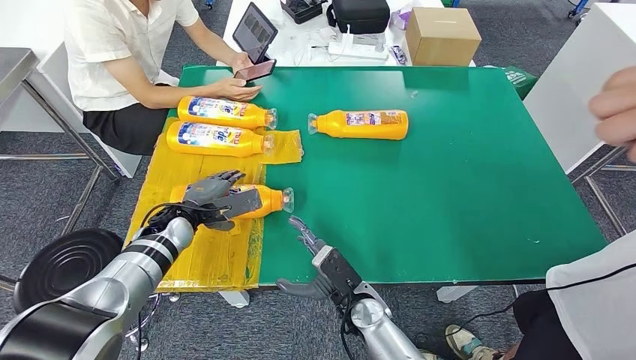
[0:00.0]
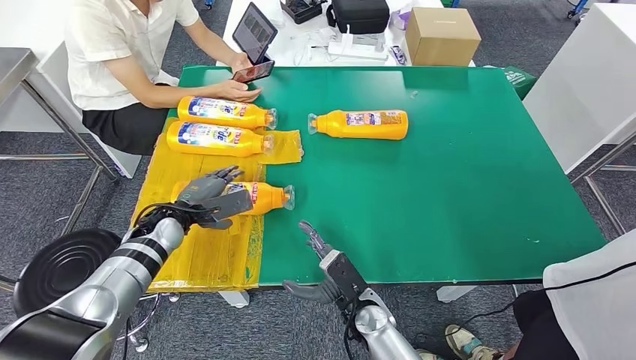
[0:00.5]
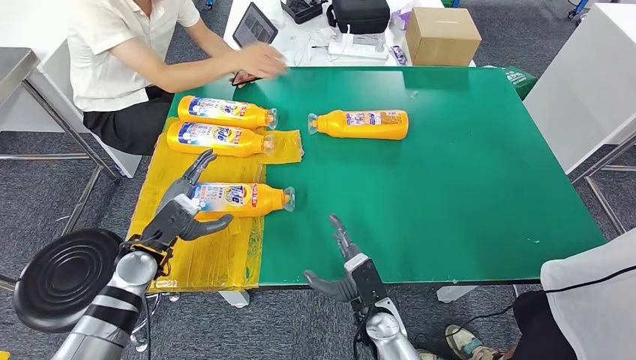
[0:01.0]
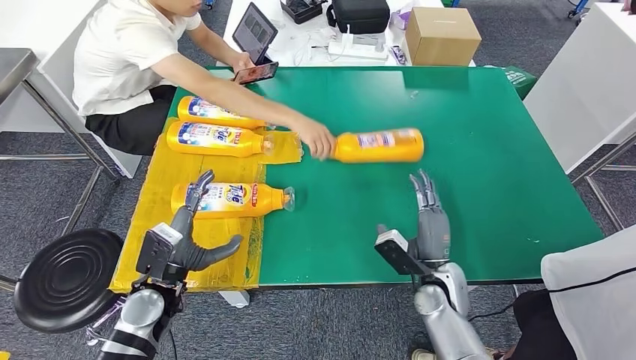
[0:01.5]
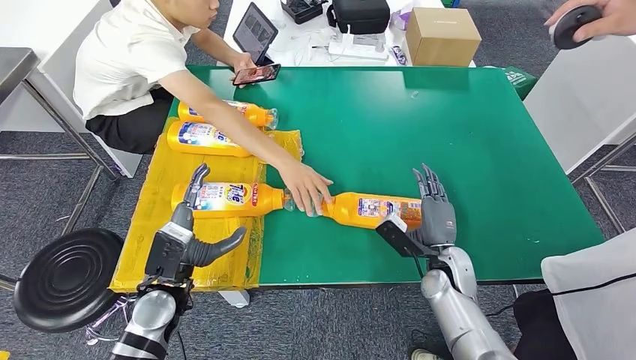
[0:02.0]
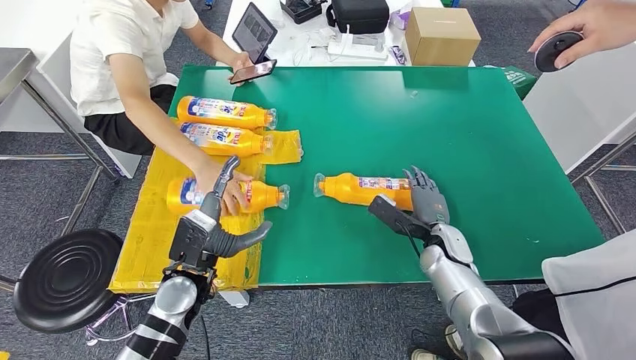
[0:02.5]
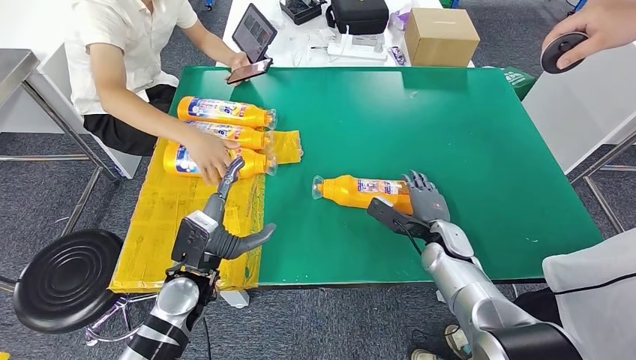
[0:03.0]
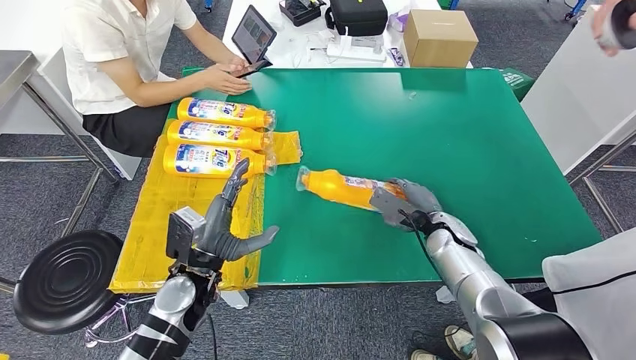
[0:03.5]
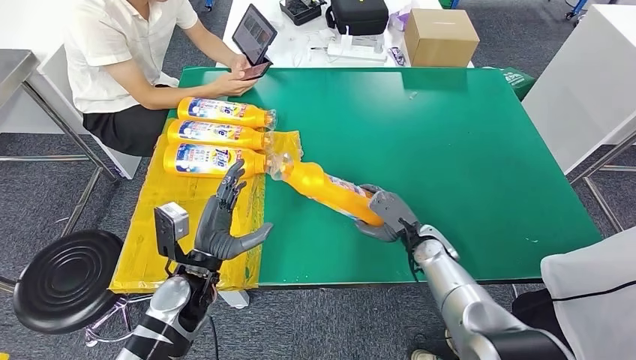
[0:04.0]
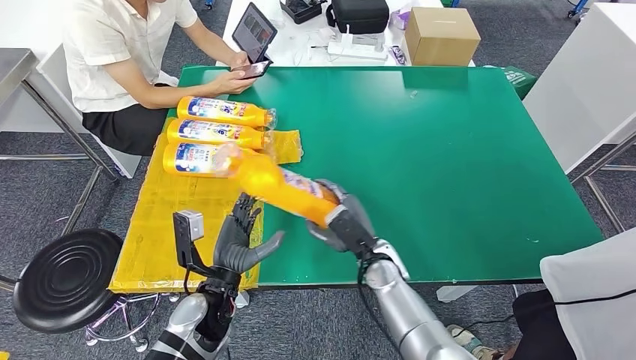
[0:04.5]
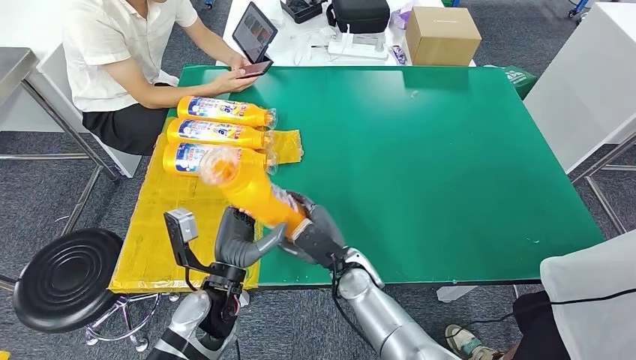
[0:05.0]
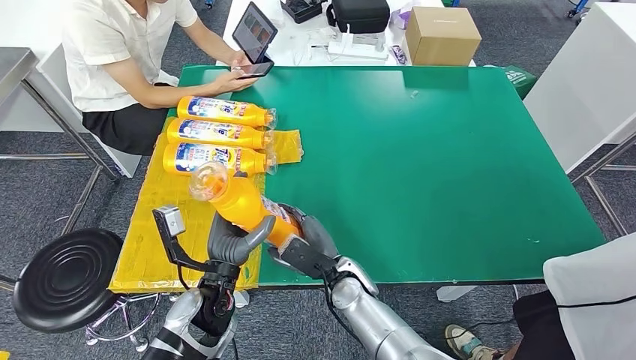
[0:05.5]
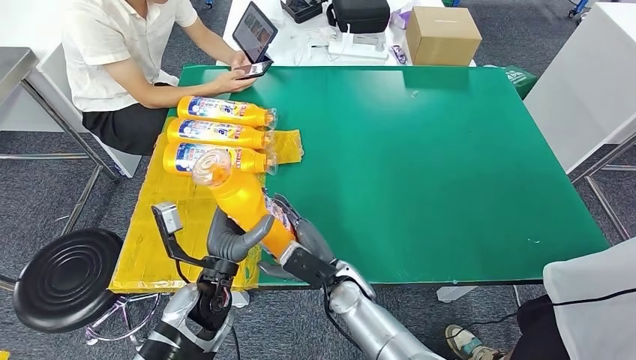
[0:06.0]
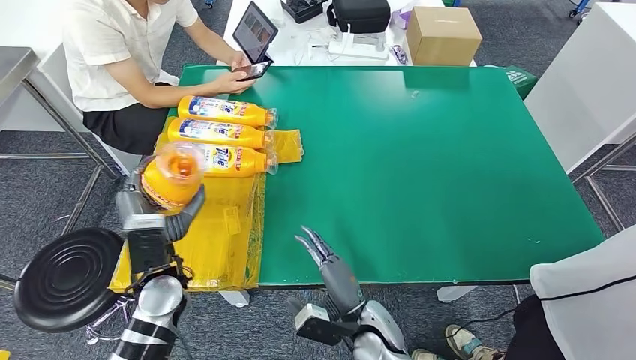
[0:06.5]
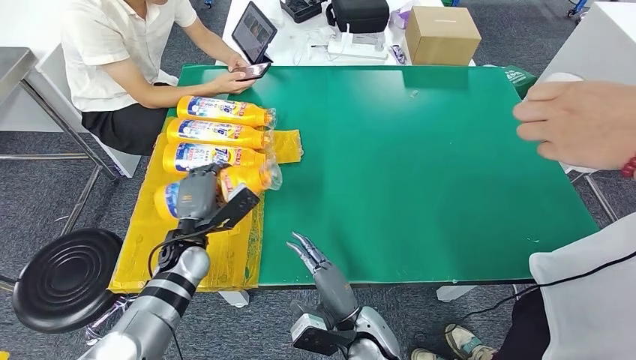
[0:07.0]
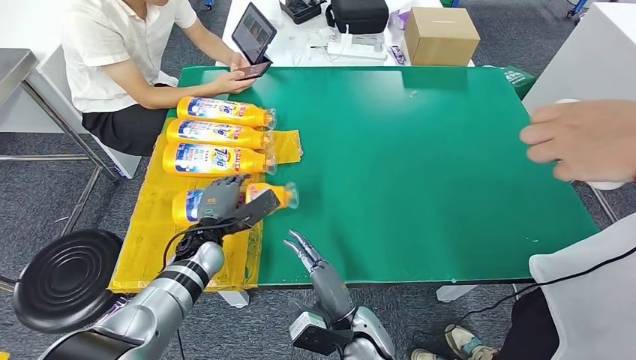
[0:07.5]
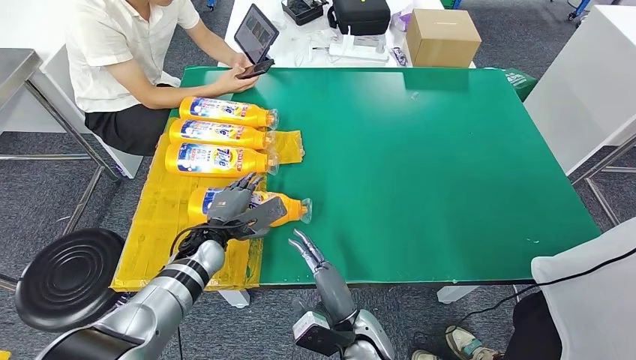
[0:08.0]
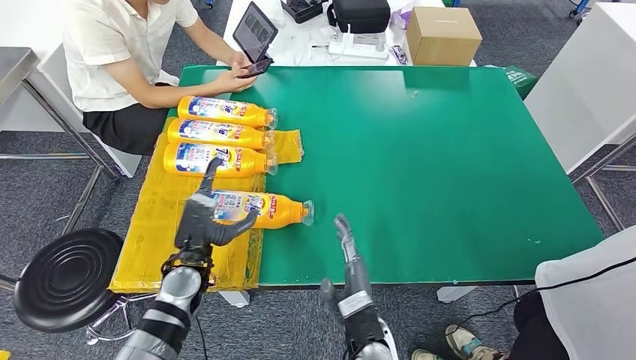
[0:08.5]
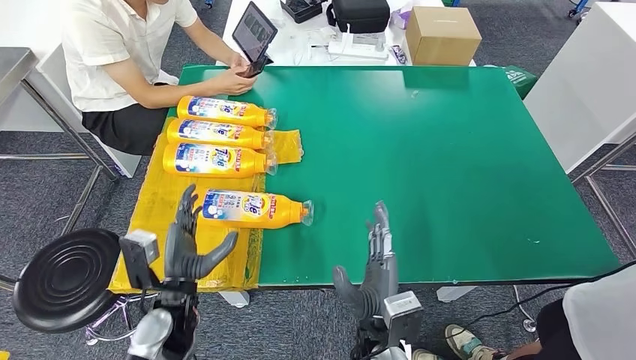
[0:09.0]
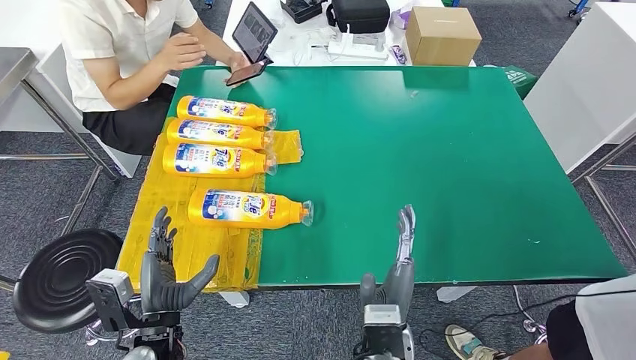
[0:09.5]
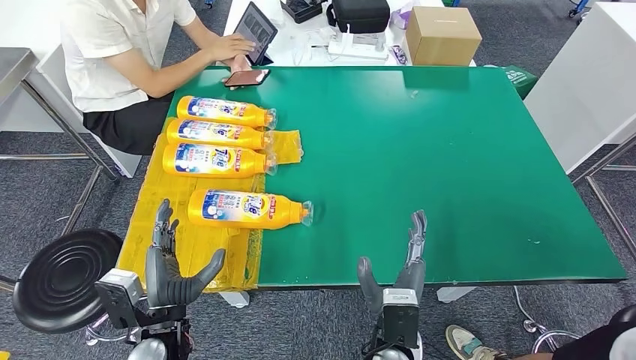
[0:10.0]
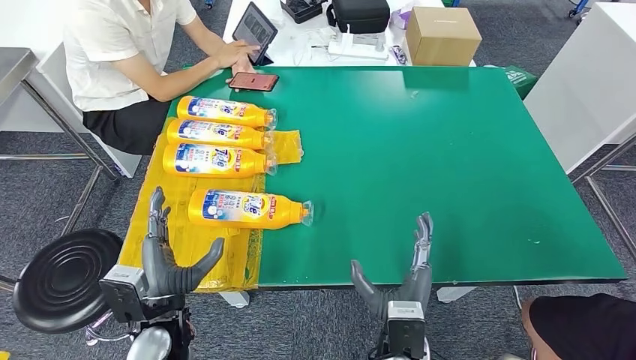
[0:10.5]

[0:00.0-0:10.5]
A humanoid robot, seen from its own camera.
Step, 0:01.0 to 0:04.5: Pick up the fast-moving consumer goods bottle from the table.
Step, 0:05.0 to 0:10.5: Flip the fast-moving consumer goods bottle to the front side.
0:06.5 to 0:08.5: The left hand travels forward and back again, roughly 10 cm each way.
0:08.5 to 0:10.5: The left hand travels backward by approximately 10 cm. The right hand changes place by approximately 5 cm.

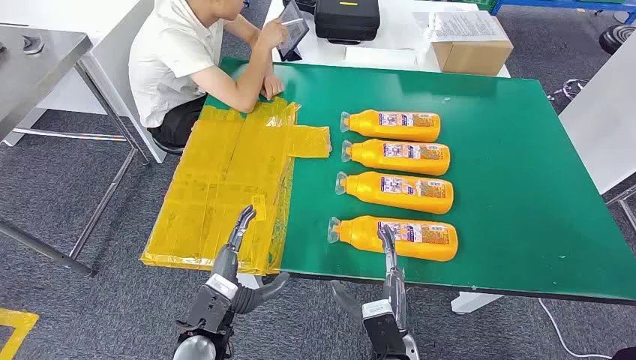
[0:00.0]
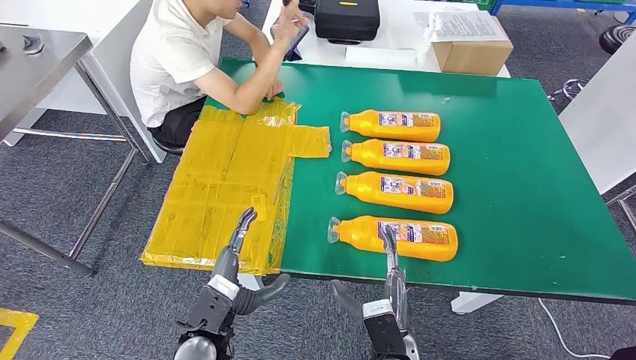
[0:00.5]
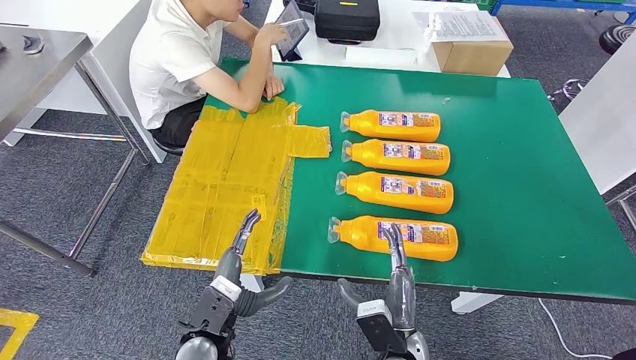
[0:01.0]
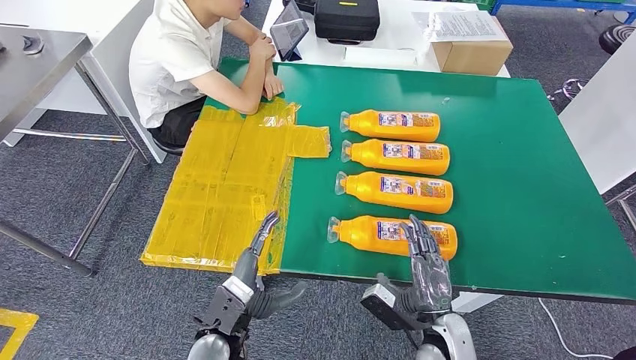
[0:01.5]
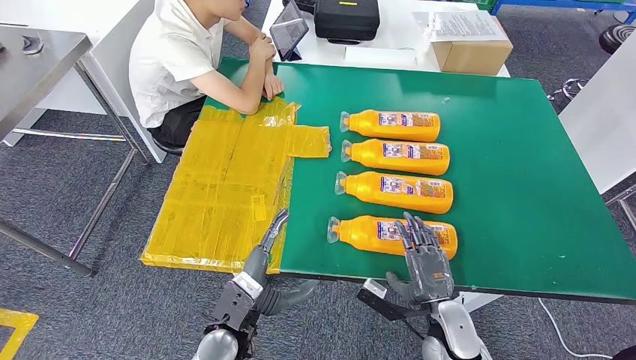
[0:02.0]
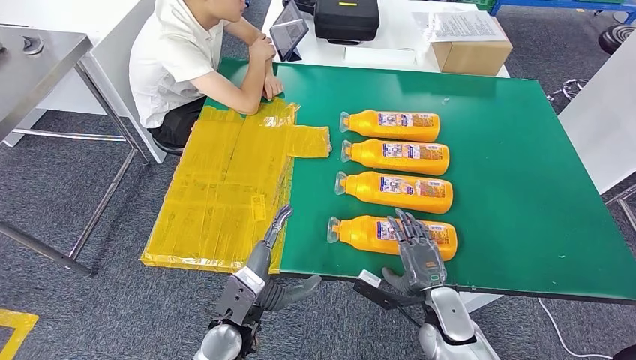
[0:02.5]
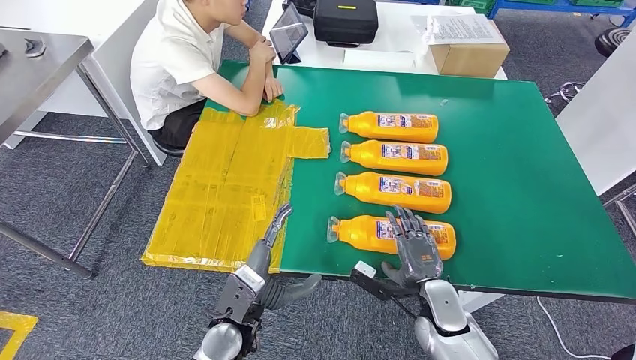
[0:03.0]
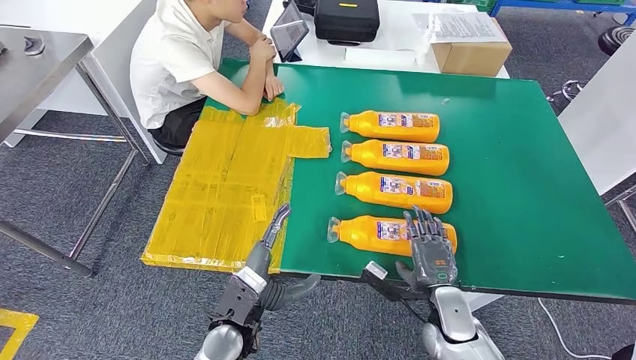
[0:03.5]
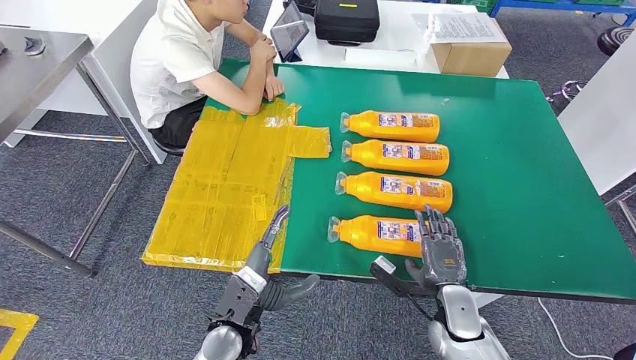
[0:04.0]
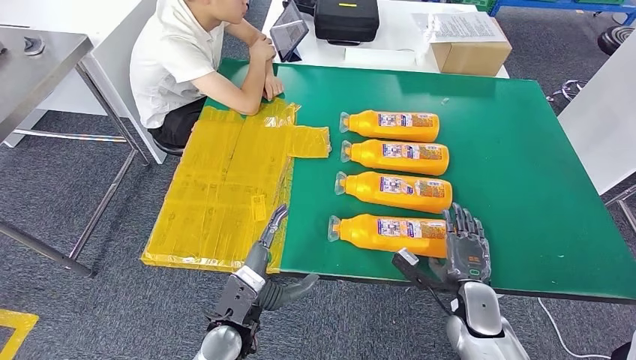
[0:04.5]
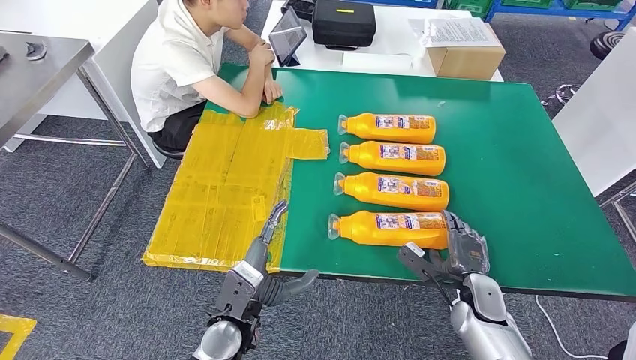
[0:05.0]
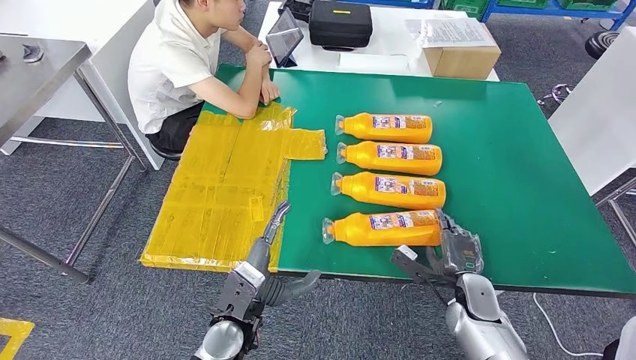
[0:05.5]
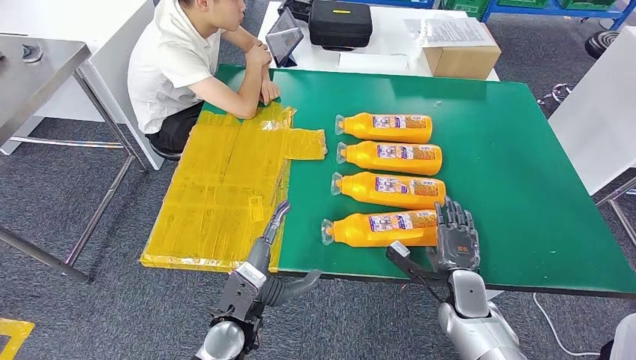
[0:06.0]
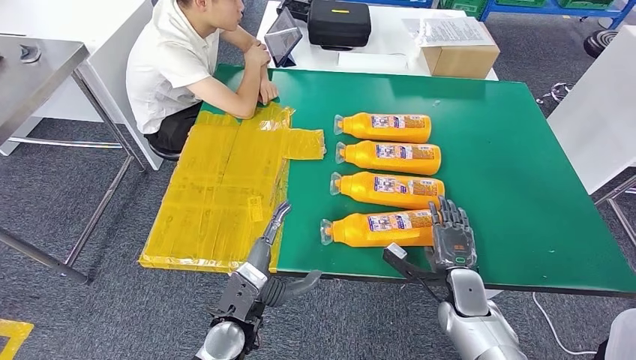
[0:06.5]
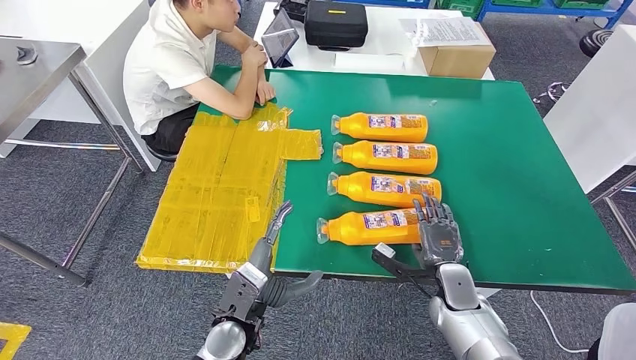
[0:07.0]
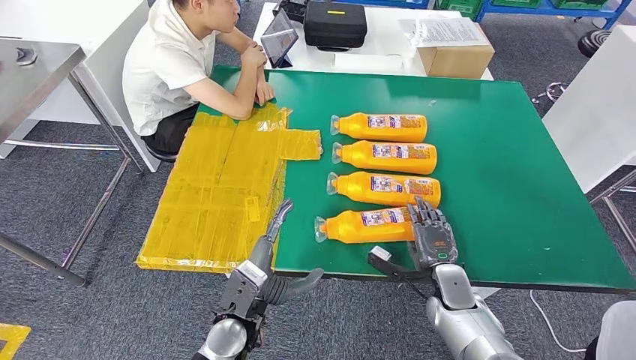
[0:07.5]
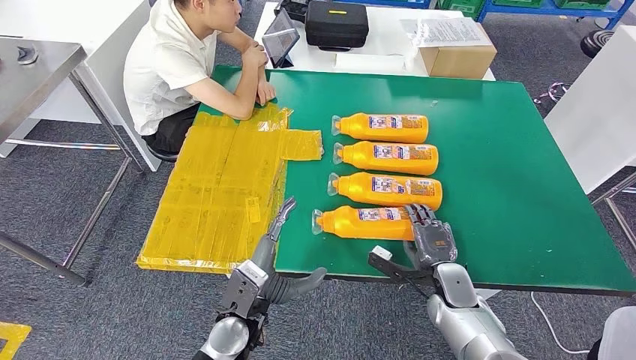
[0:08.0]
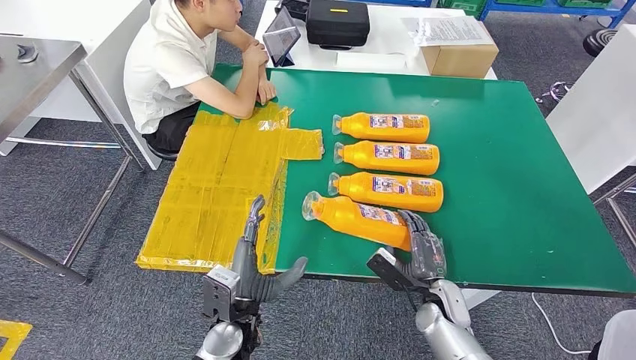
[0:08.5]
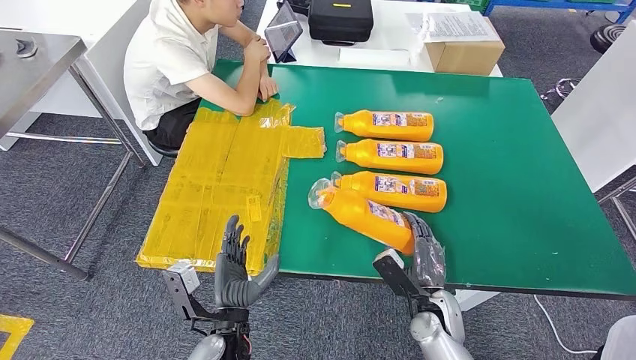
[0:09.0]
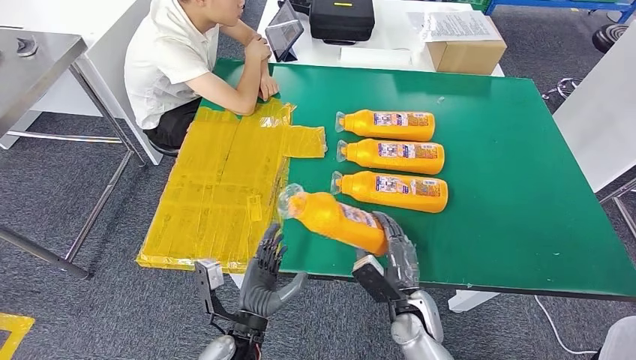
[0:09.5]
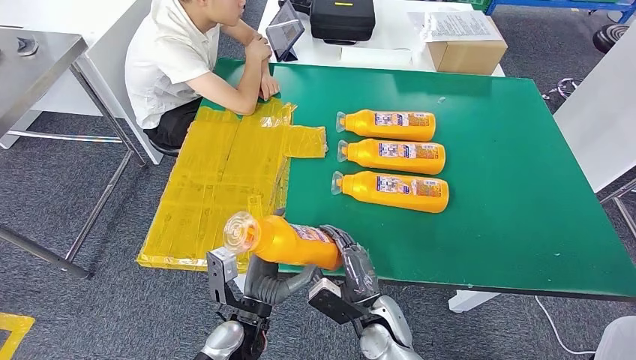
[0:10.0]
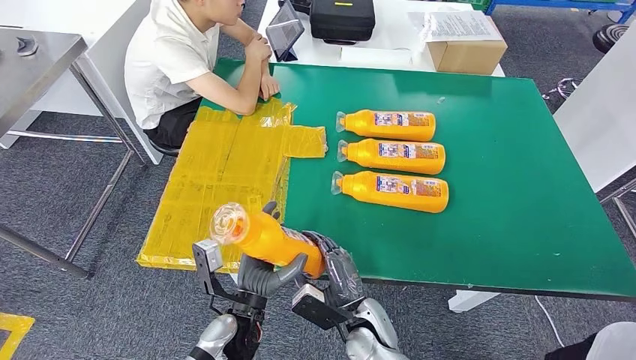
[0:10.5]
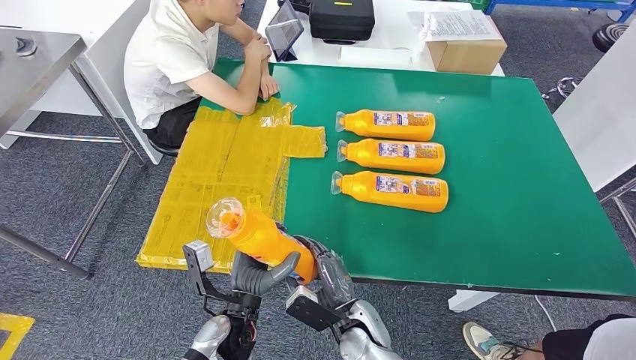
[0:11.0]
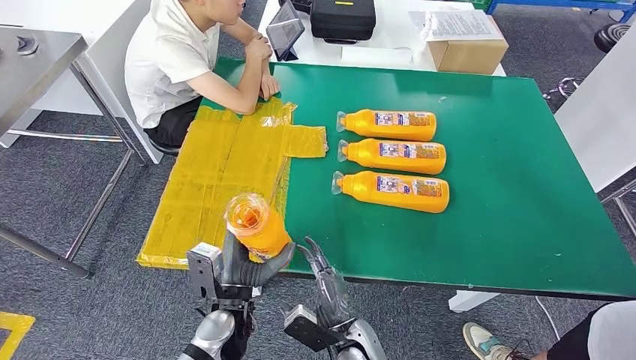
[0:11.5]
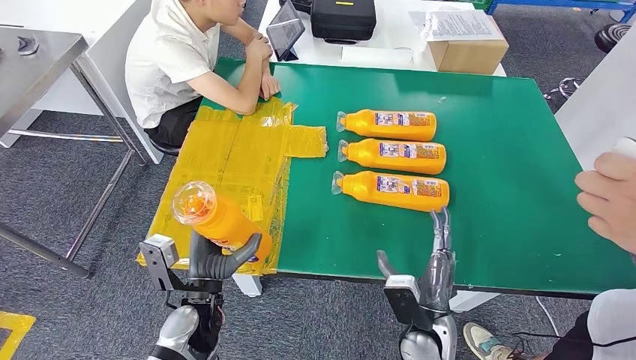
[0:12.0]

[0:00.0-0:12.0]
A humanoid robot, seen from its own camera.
Step, 0:00.0 to 0:10.0: Take the fast-moving consumer goods bottle from the table.
0:02.0 to 0:04.0: The hands move only a little.
0:06.0 to 0:08.0: The hands move only a little.
0:10.0 to 0:12.0: The right hand travels to the right by some 5 cm; the left hand is displaced to the left by approximately 10 cm.
